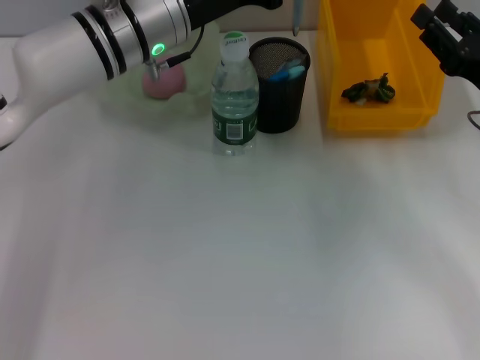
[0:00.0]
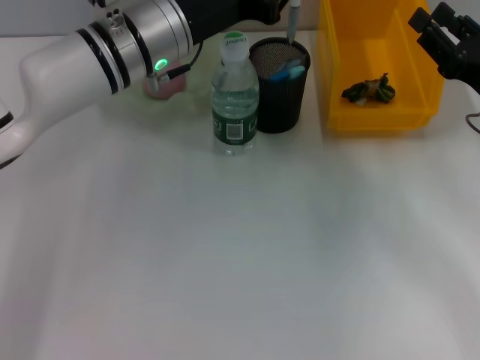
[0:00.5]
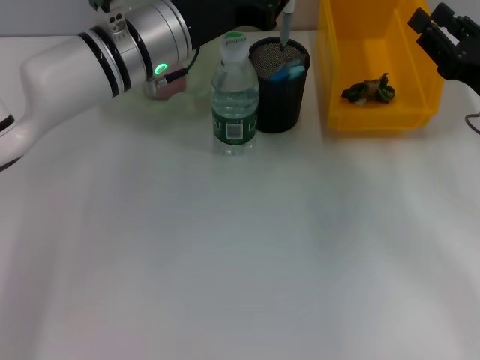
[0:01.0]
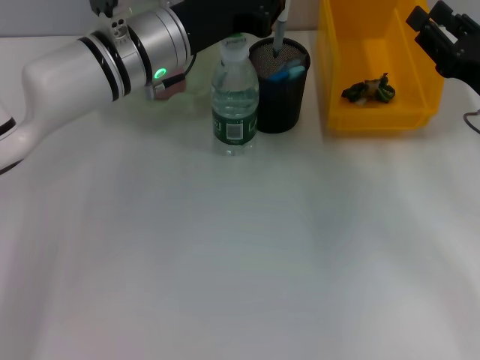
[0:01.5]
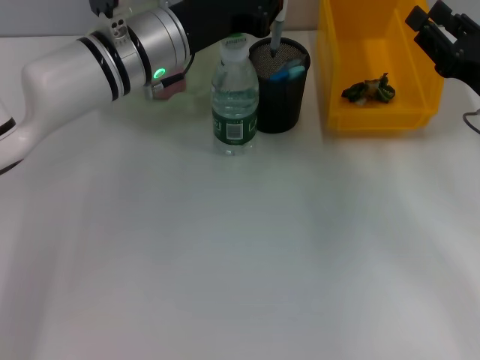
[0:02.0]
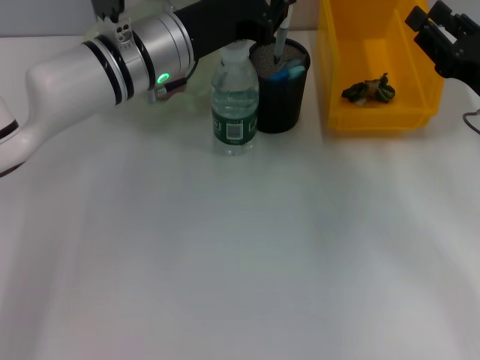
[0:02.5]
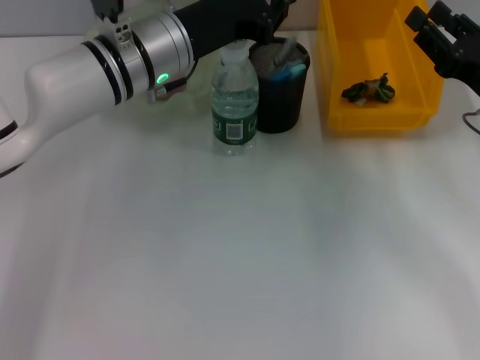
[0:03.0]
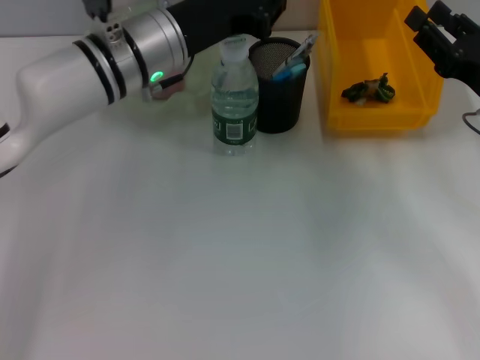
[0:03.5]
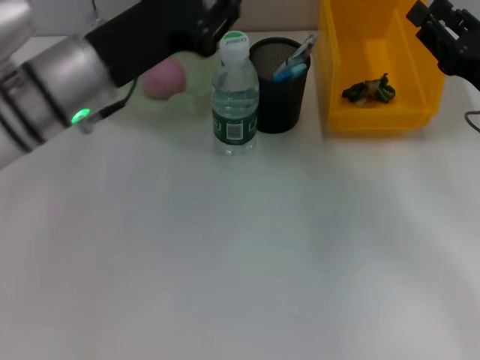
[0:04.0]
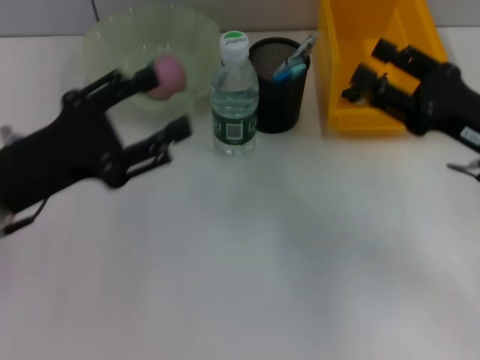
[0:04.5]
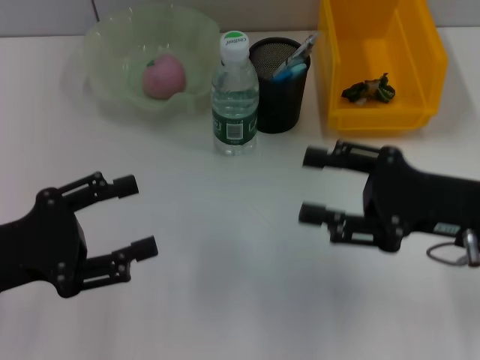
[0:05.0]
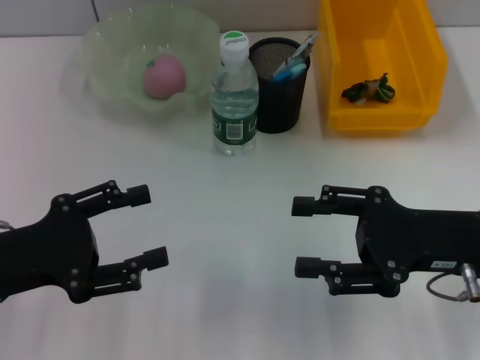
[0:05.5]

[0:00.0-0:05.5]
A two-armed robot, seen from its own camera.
Step, 0:00.0 to 0:03.0: Place the gray spring-action pen into the pen holder with the left hand.
0:00.0 to 0:02.0: There are only small adjustments of the grippers.
0:02.0 to 0:03.5: The two grippers keep their place.
0:03.5 to 0:05.5: The right gripper heads backward and to the left, covering about 10 cm; the left gripper moves backward and to the left, roughly 25 cm, and opens.
